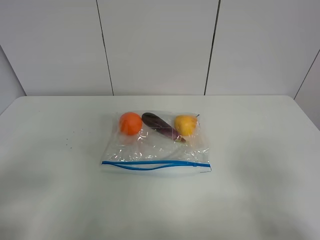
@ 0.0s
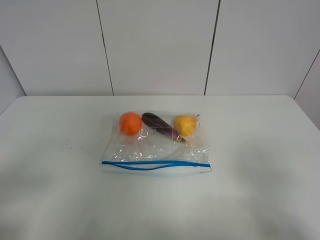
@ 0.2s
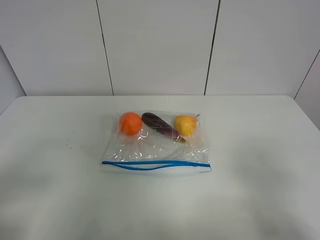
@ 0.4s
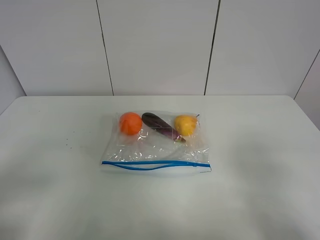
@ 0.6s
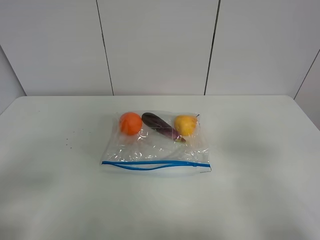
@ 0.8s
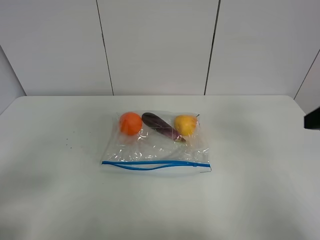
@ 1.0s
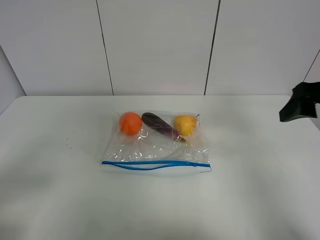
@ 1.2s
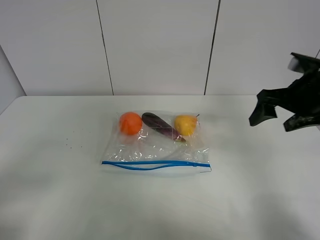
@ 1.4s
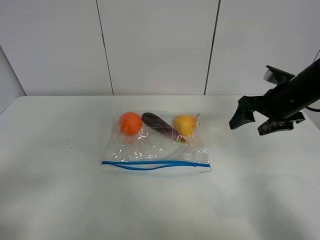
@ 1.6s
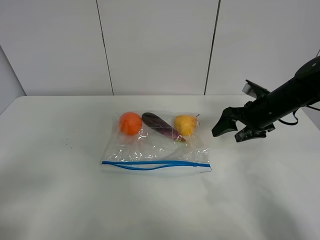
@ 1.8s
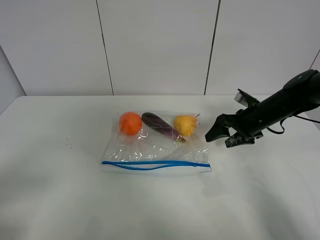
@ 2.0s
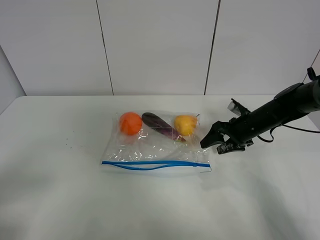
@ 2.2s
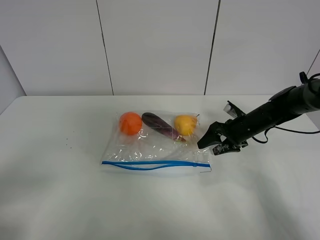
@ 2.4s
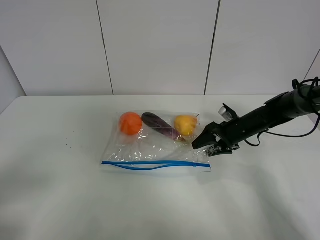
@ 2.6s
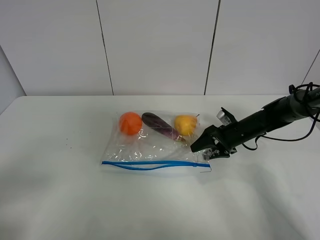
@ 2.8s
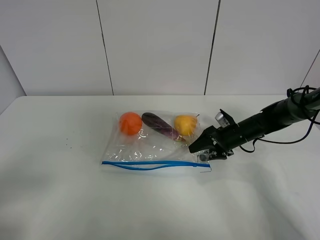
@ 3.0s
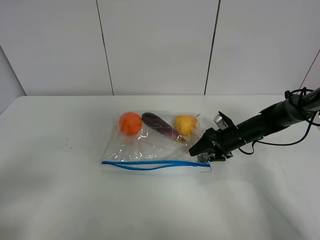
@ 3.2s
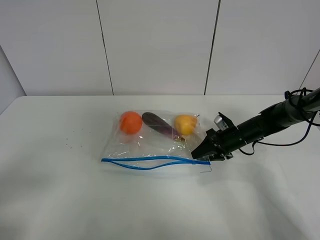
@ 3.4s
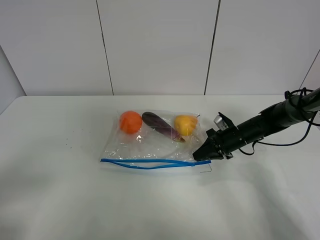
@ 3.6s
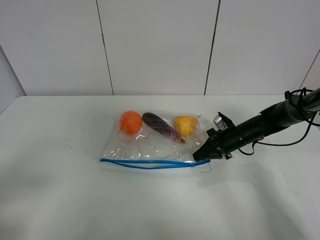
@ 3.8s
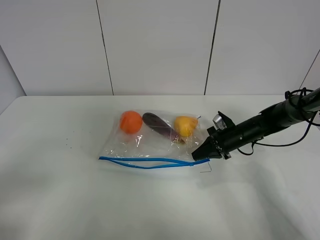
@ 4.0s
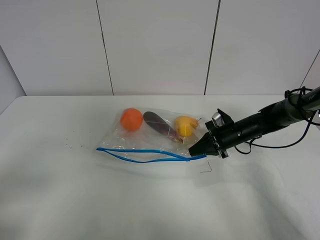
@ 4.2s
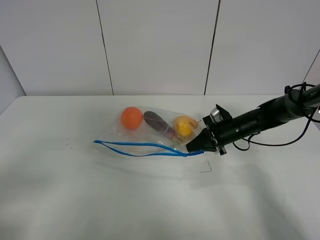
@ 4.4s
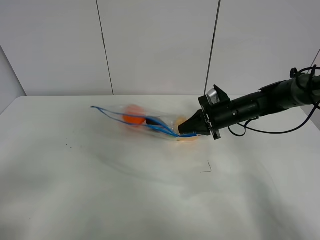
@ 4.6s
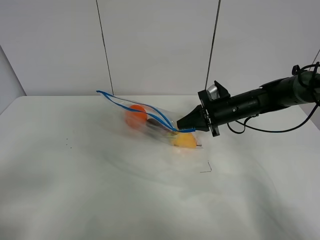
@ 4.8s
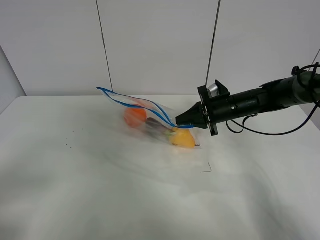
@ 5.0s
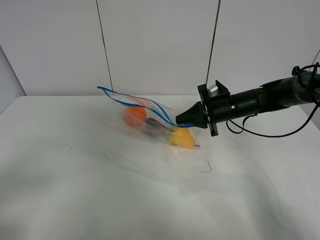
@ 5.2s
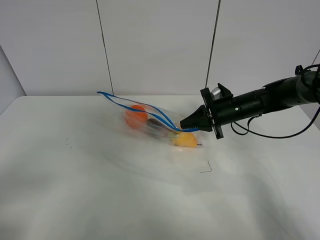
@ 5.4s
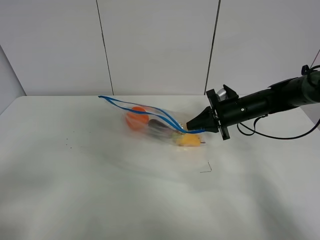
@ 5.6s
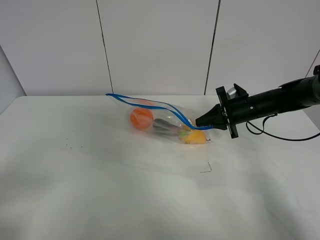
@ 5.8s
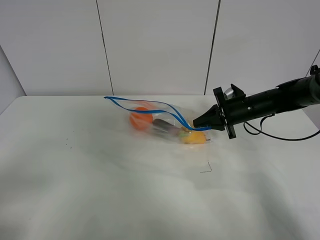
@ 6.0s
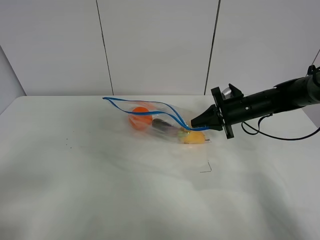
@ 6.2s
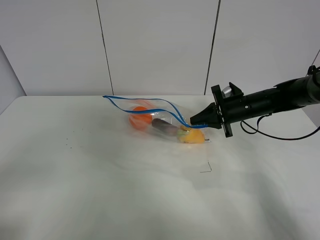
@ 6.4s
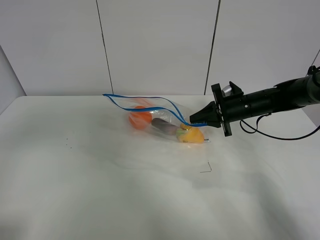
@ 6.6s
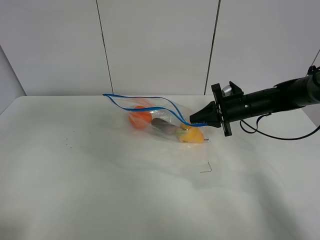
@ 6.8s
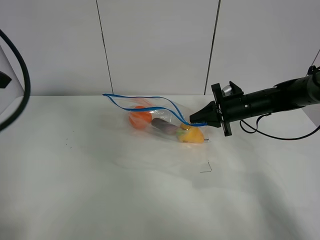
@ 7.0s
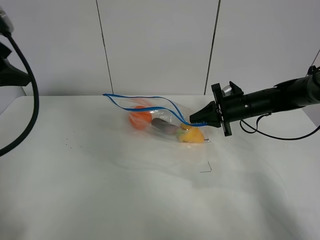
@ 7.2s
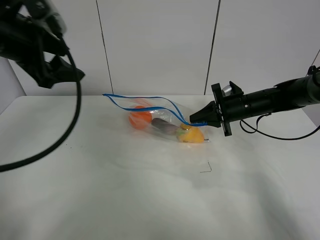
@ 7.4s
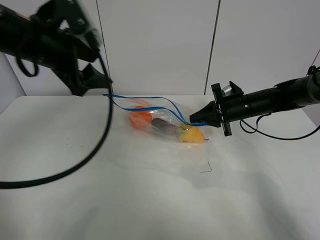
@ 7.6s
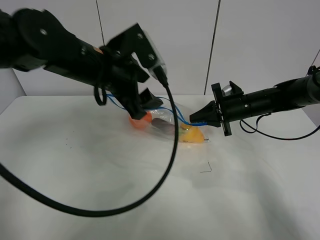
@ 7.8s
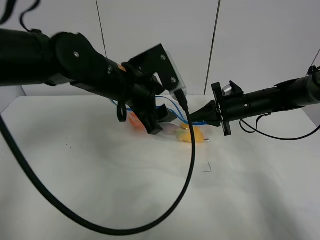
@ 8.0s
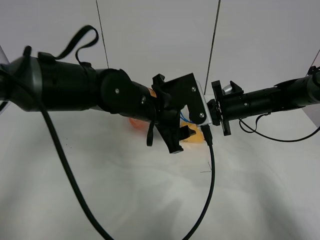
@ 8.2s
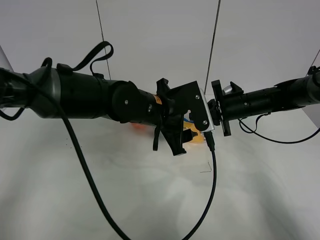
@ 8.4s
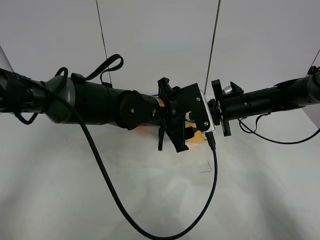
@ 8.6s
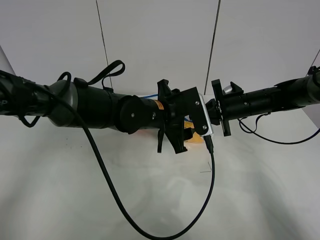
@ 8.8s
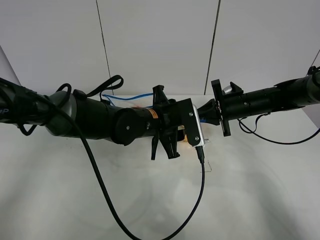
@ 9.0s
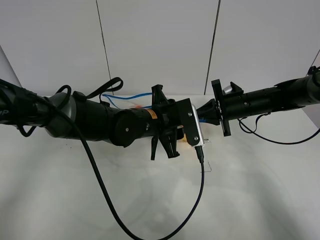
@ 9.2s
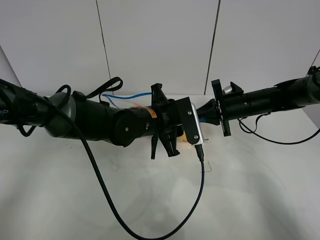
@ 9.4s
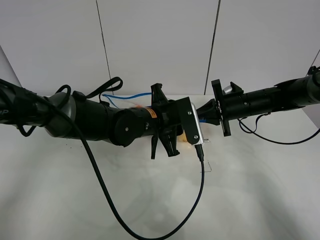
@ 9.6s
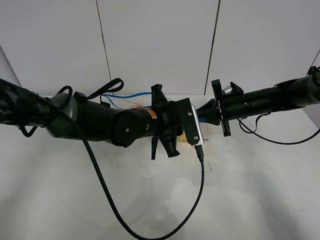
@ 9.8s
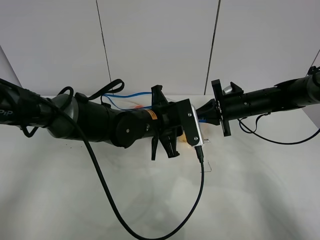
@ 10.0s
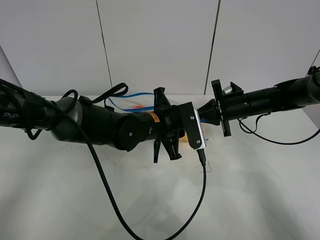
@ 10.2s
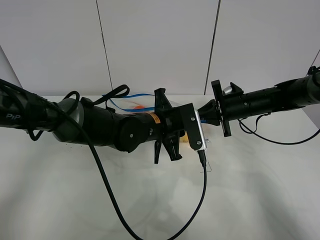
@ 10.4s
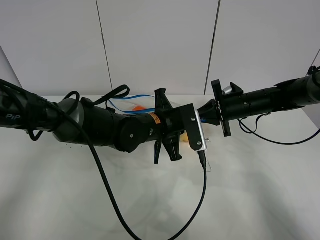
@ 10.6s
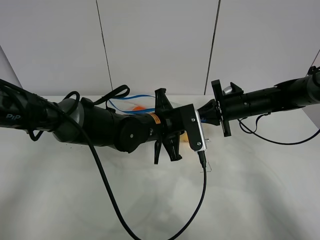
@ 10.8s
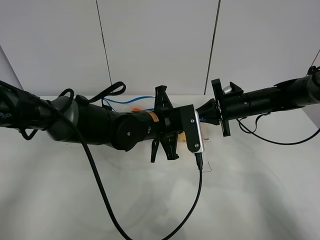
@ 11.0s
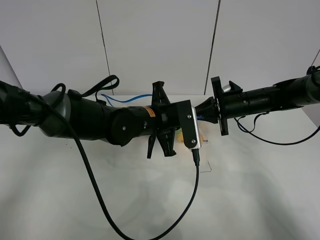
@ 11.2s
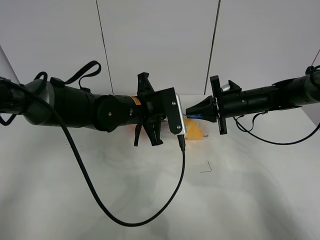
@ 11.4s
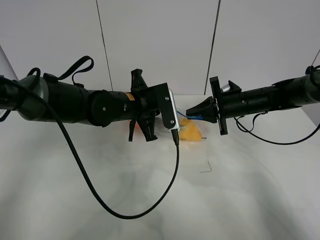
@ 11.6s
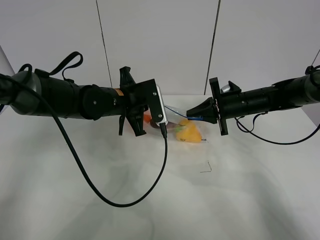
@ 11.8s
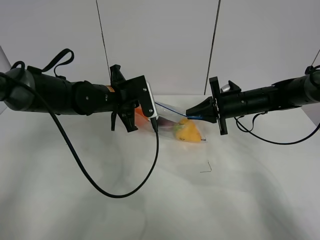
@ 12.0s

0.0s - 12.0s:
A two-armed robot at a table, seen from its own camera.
Step, 0.0s - 3.6s: Grasp the fruit bag with right gripper.
Step, 3.8s - 5.8s: Lift the fruit bag with your right gripper.
0.0s - 1.6s: The right gripper travels forward by about 30 cm.
1.6s - 3.0s: The right gripper heads downward, covering about 15 cm.
3.0s - 4.4s: The right gripper closes.
4.4s - 6.0s: The right gripper shifts approximately 5 cm upward.
6.0s - 7.6s: The left gripper heads forward and to the right, covering about 30 cm.
7.6s - 9.0s: The left gripper goes roughly 20 cm to the right and downward.
9.0s - 10.4s: The left gripper closes up.
10.4s - 12.0s: The left gripper travels to the left and forward by approximately 15 cm.

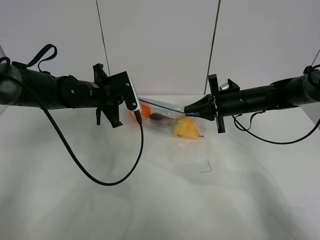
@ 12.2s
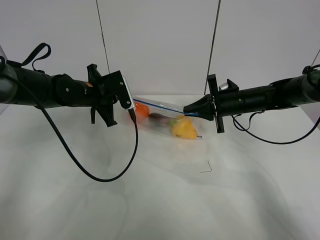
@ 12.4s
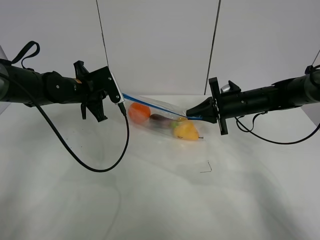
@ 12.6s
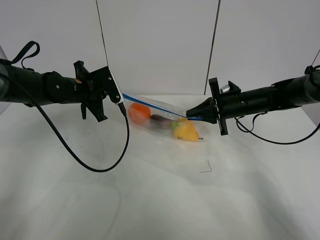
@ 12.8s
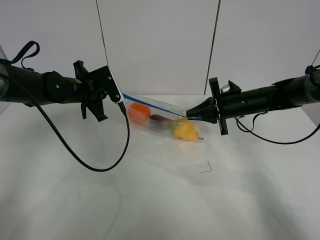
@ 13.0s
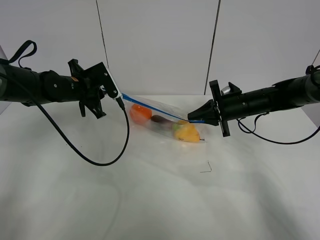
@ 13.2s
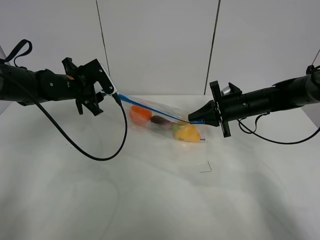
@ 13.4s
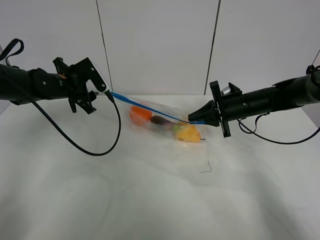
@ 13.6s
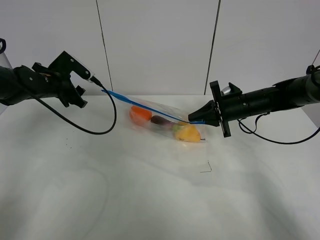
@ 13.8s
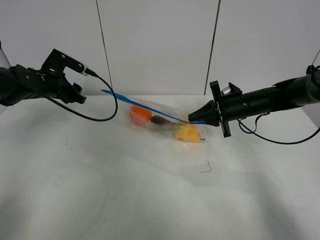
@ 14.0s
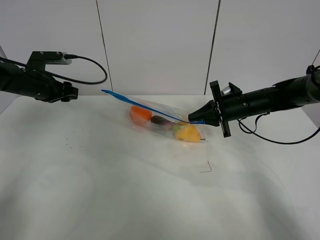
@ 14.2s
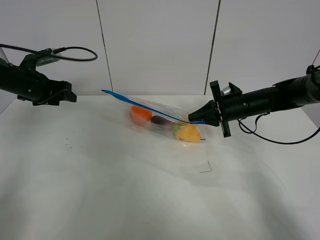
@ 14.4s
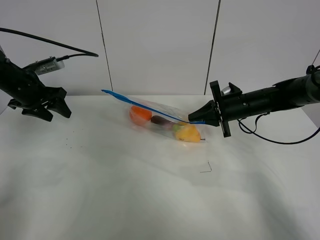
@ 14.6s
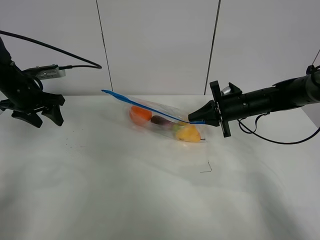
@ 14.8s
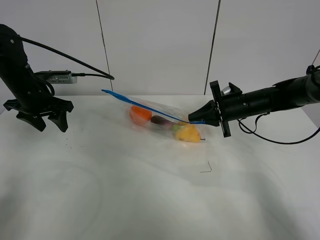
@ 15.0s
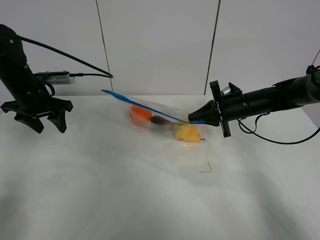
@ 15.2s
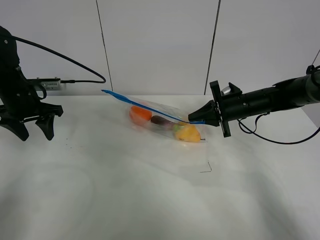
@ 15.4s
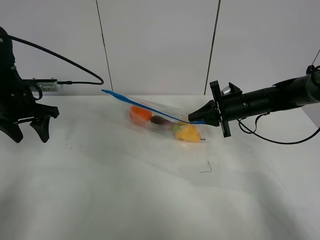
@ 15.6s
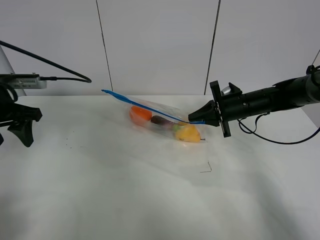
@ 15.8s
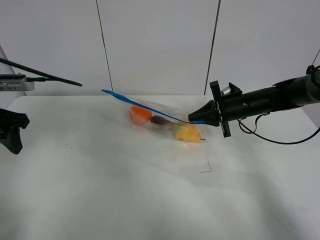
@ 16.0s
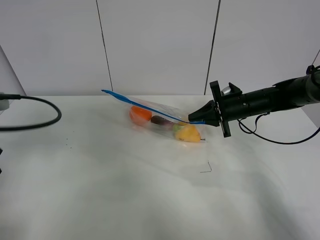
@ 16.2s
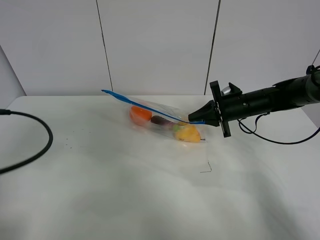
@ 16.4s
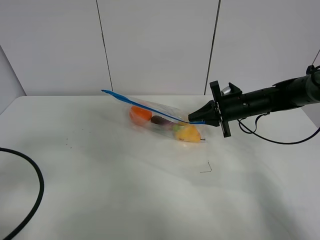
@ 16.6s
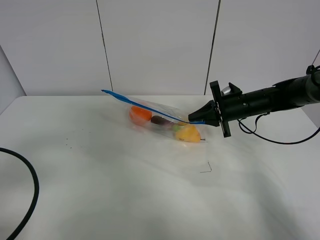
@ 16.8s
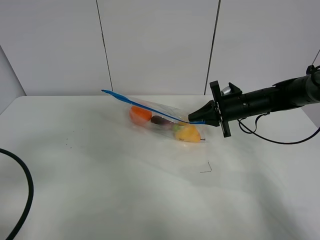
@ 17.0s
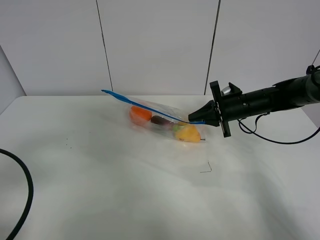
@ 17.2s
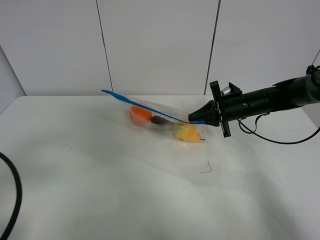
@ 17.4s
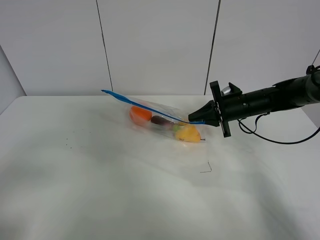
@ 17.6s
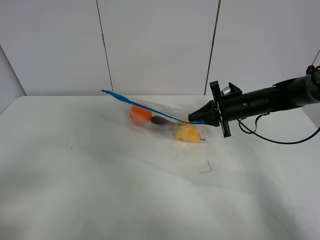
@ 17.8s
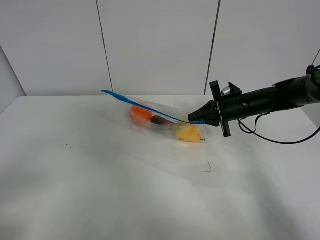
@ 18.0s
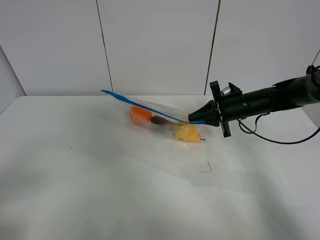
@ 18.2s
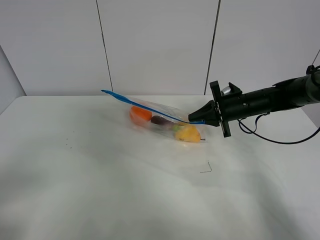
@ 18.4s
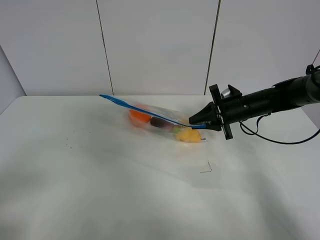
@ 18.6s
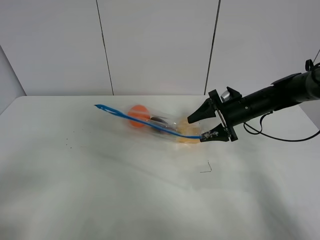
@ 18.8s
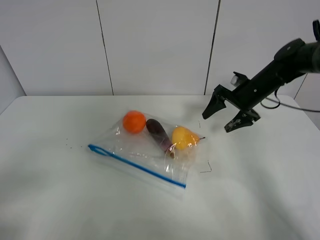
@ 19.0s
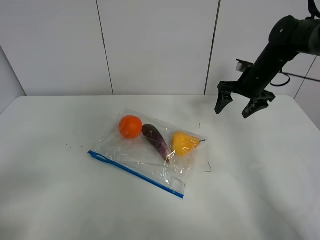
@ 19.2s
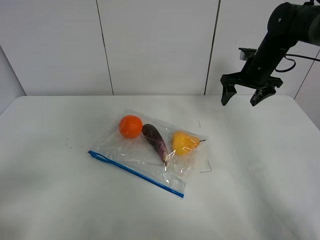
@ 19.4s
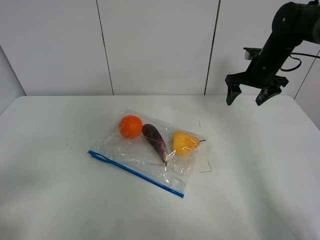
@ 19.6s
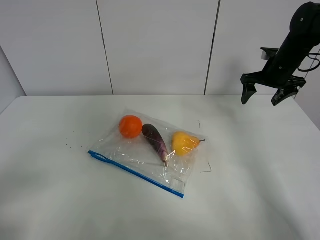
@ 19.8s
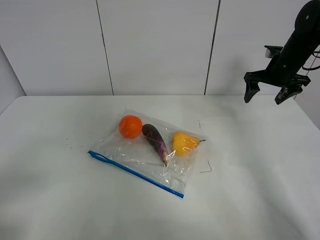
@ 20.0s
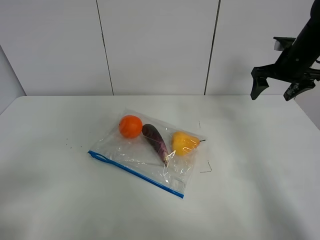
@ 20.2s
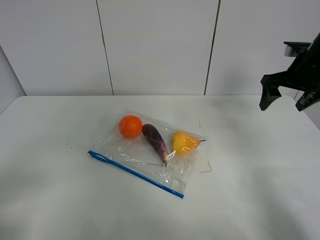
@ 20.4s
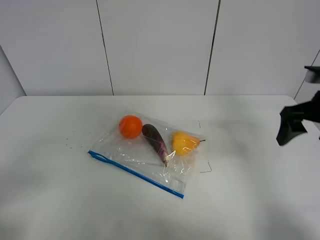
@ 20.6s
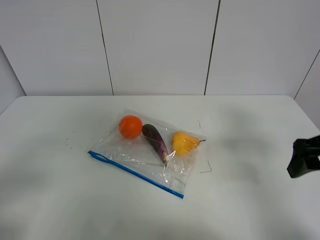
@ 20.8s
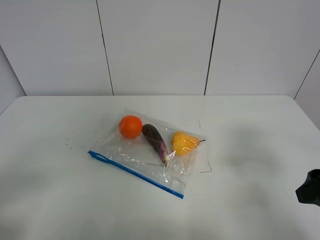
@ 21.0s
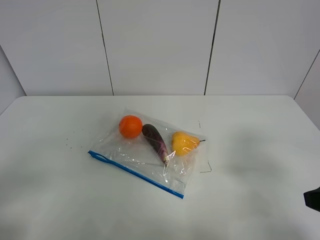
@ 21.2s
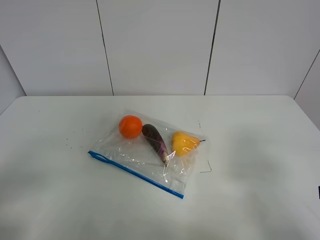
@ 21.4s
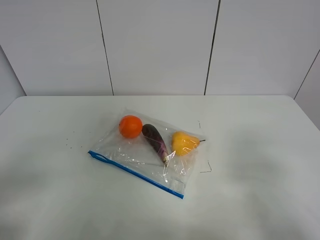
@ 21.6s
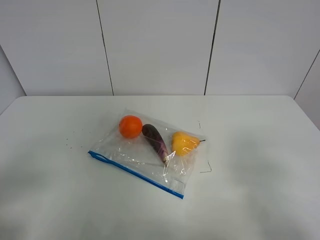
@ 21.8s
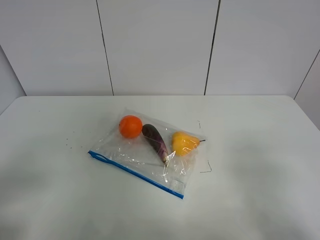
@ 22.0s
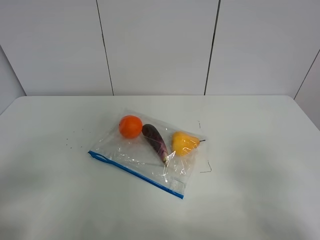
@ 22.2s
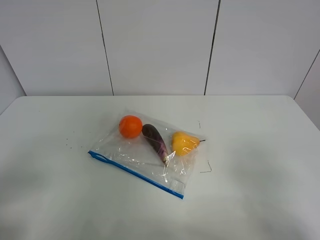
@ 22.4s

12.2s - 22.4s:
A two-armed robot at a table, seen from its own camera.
12.2s - 13.6s: The left gripper moves to the left, about 10 cm, and opens its fingers.
13.6s - 15.2s: The left gripper is displaced to the left by roughly 5 cm.
15.2s - 16.6s: The left gripper moves backward, about 25 cm.
16.6s - 18.0s: The left gripper travels backward by about 10 cm.
18.0s - 19.4s: The right gripper goes some 10 cm upward and forward, and opens.
19.4s - 21.0s: The right gripper goes some 35 cm backward.
21.0s - 22.4s: The right gripper heads backward, covering about 10 cm.
